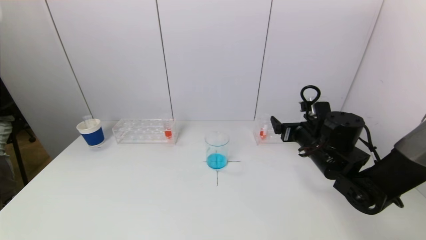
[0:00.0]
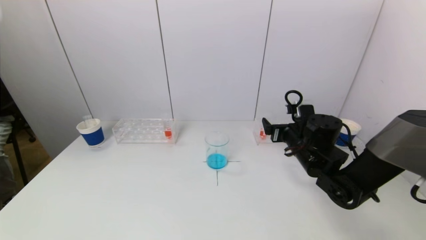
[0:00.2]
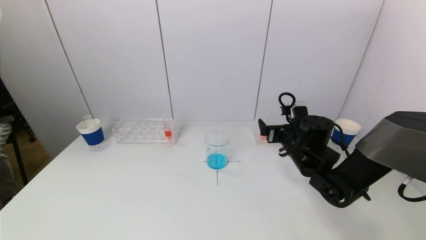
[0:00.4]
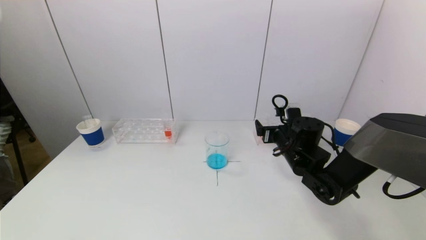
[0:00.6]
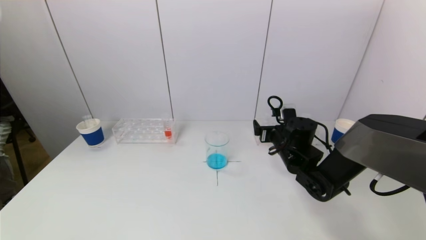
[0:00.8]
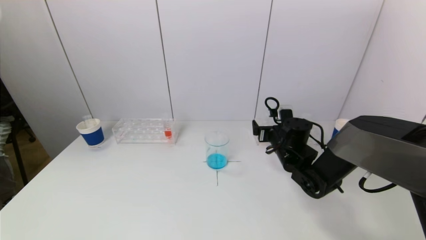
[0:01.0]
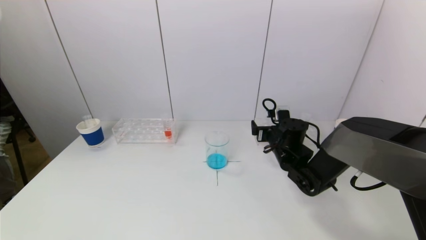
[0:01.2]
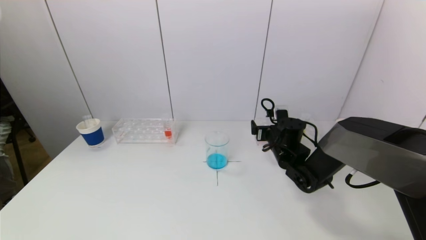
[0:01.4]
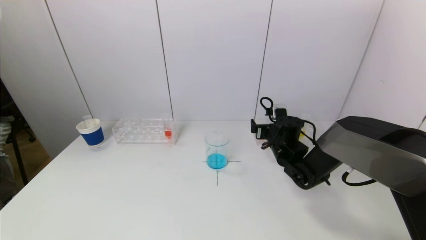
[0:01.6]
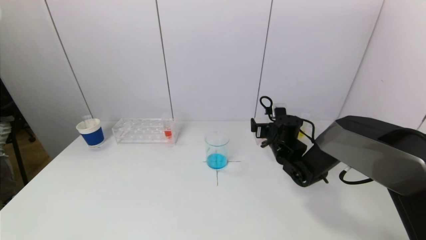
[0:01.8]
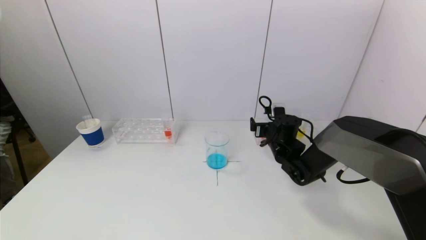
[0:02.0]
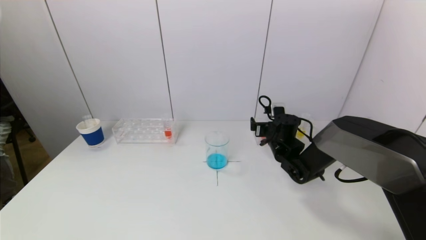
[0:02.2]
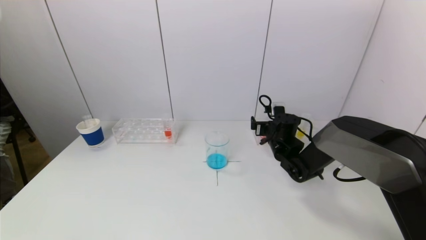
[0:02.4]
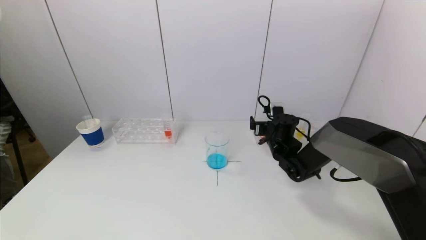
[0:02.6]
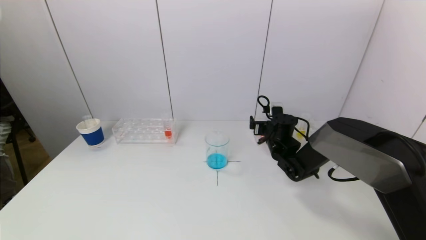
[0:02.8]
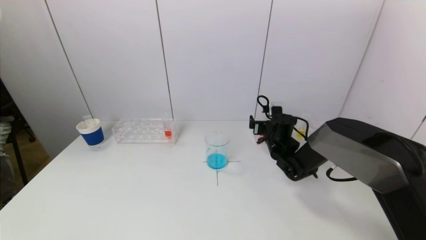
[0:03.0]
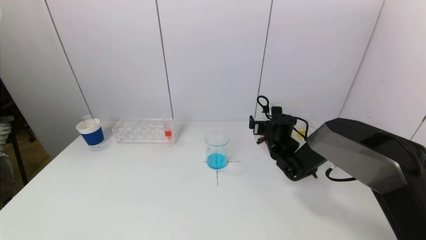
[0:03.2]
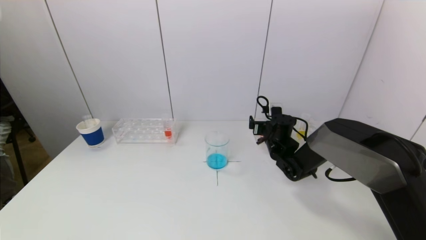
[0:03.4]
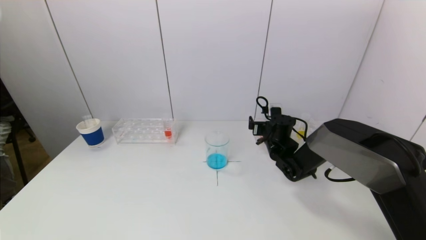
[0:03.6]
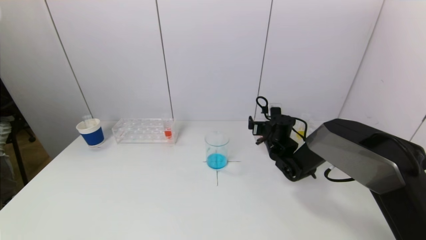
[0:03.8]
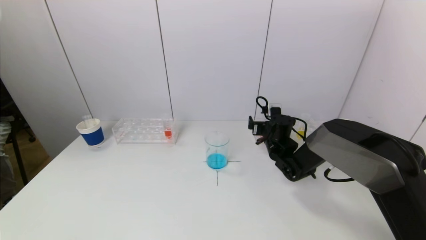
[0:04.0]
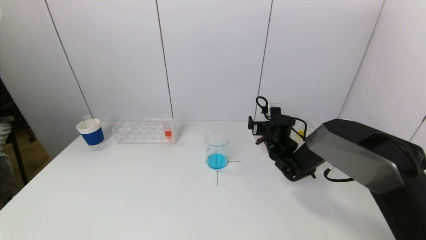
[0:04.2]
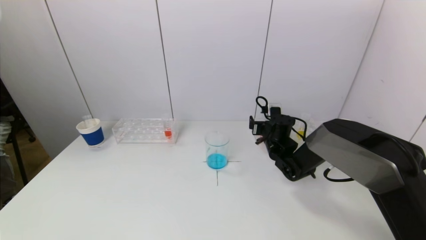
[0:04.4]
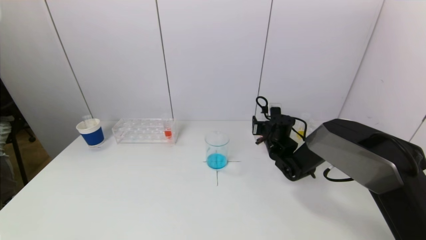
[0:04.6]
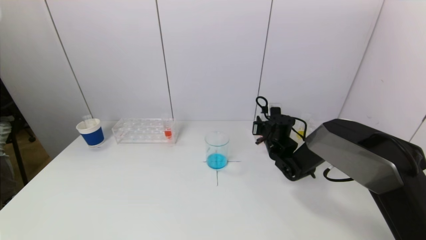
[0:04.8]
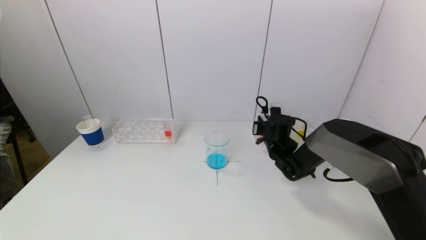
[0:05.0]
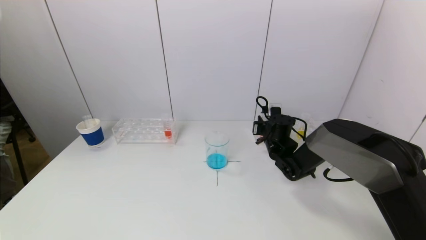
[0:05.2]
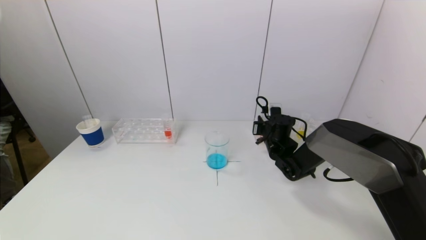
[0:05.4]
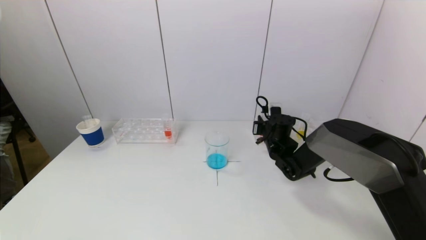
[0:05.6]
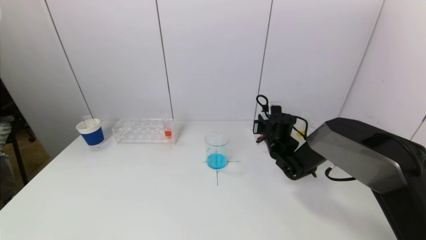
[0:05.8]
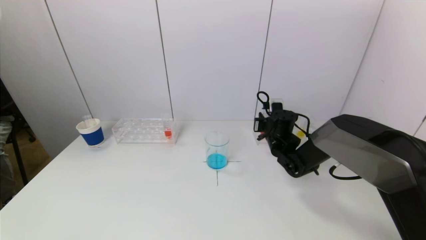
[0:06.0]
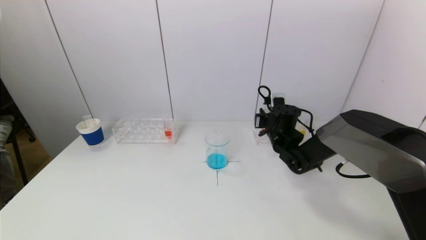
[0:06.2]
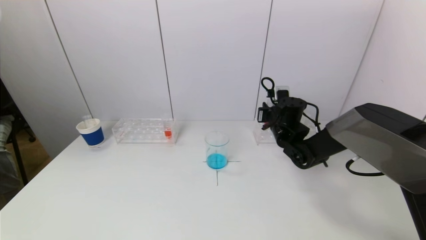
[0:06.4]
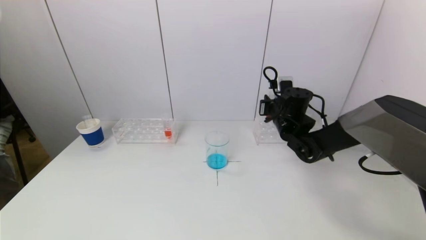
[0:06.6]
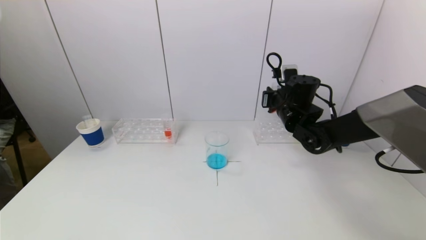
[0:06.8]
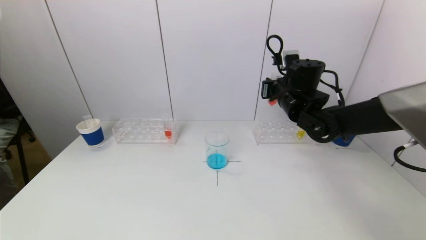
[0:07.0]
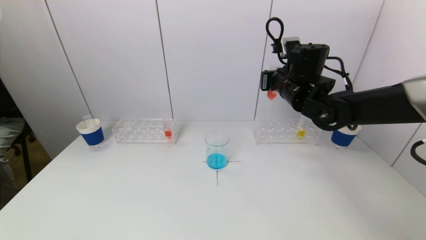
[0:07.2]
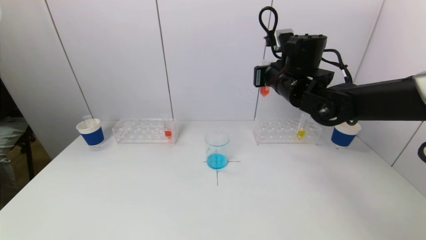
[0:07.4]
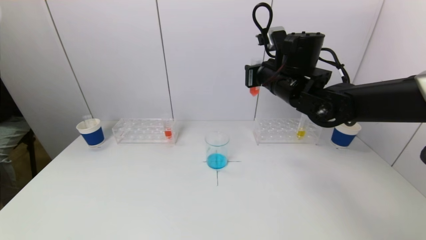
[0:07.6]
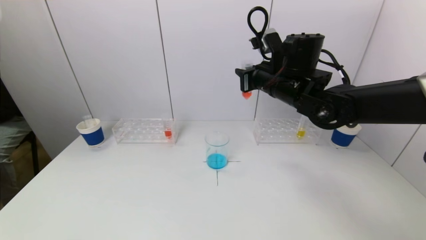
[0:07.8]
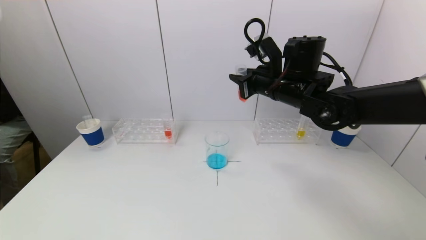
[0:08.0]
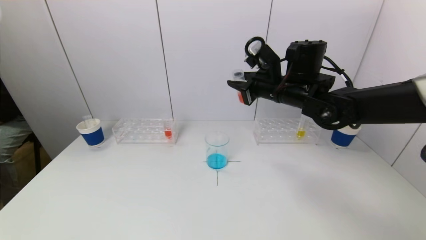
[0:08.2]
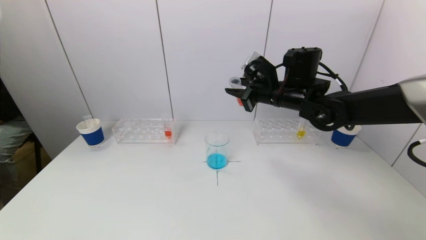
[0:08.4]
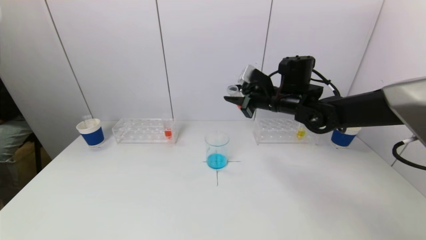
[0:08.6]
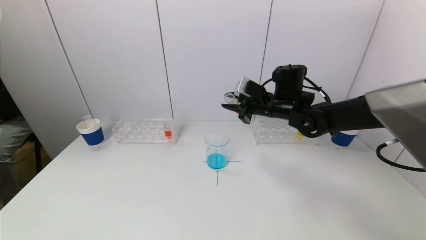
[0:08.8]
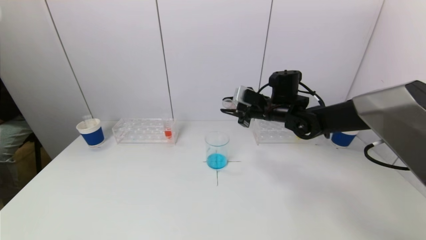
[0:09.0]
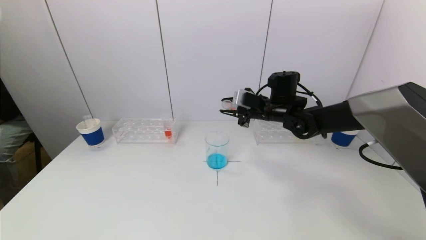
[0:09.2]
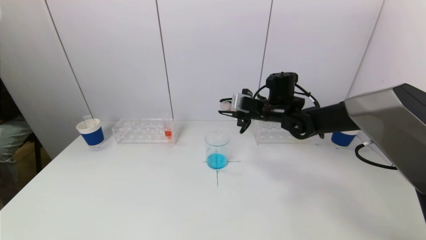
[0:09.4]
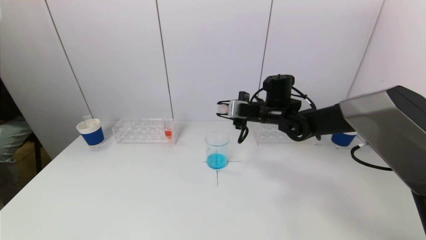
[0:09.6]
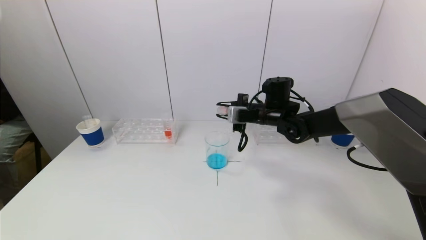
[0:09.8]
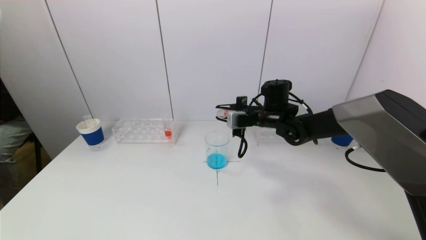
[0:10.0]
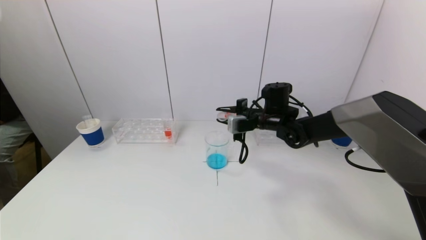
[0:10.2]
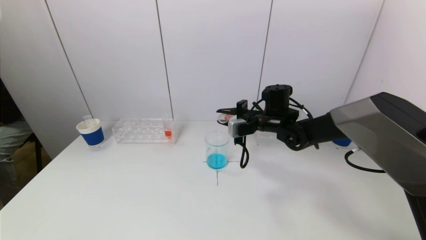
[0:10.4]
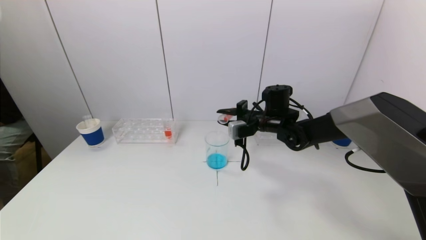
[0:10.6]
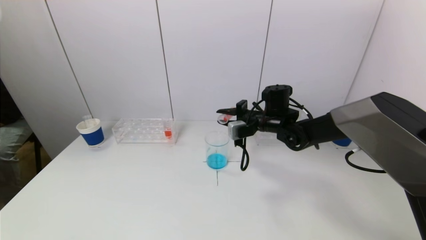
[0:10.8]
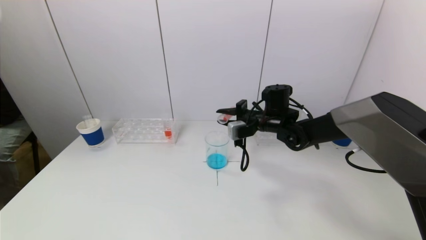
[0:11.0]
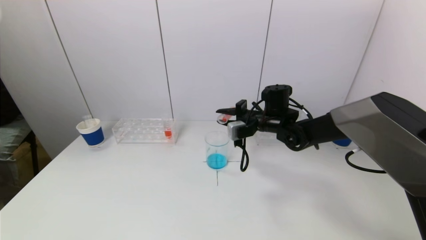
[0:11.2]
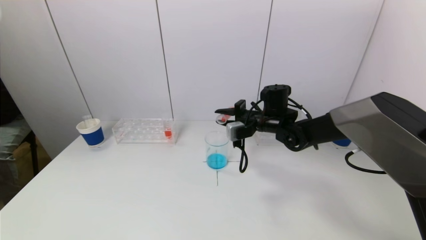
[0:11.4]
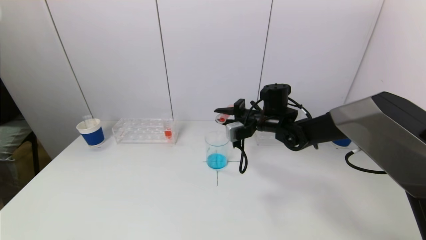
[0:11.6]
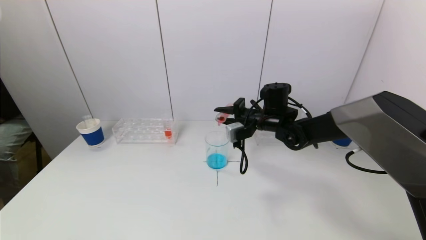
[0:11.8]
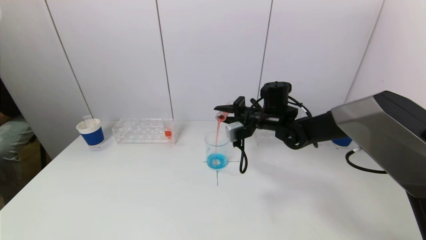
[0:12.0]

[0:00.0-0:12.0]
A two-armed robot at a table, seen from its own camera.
Task of the whole recording: pick up a test tube with pigment on left test tube rack and a test tube with pigment on right test tube rack by grippers and pour them into the beaker.
Step, 0:00.0 to 0:05.2: Grasp the red reagent with the right gripper.
0:00.0 to 0:01.6: The right gripper heads forward and downward, covering some 10 cm.
0:01.6 to 0:03.0: The grippers make only small movements.
0:03.0 to 0:04.4: The two grippers keep their place.
0:04.4 to 0:06.0: The right gripper closes its fingers.
0:06.0 to 0:07.6: The right gripper goes some 20 cm upward.
0:07.6 to 0:09.0: The right gripper moves downward, roughly 10 cm.
0:10.4 to 0:12.0: The grippers stay close to where they were, moving slightly.

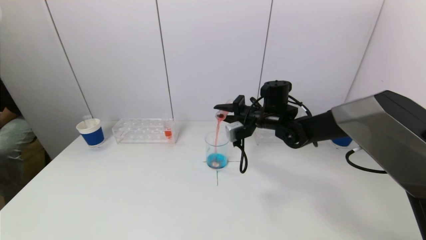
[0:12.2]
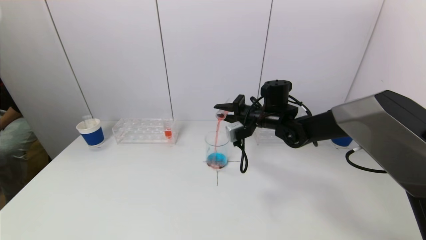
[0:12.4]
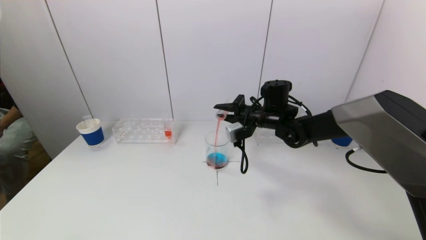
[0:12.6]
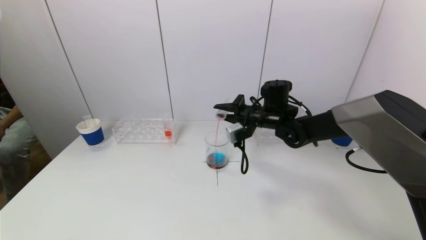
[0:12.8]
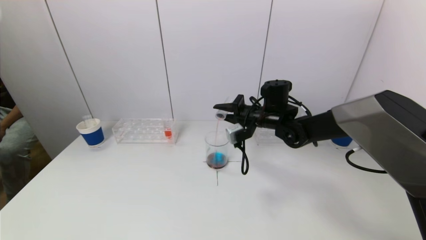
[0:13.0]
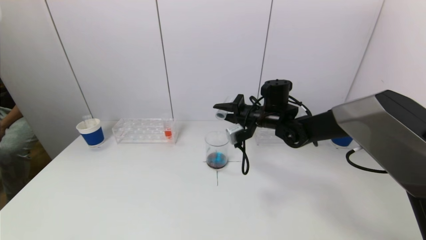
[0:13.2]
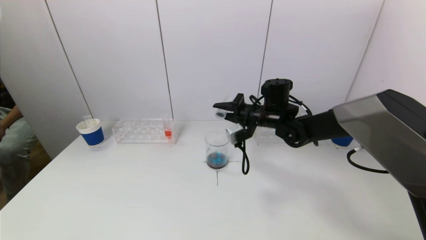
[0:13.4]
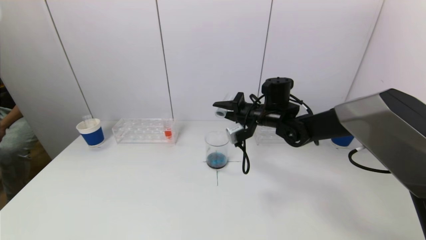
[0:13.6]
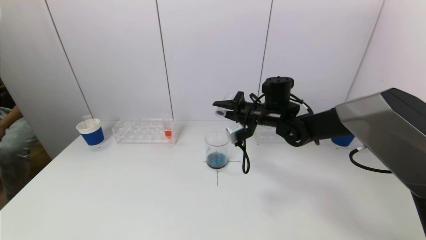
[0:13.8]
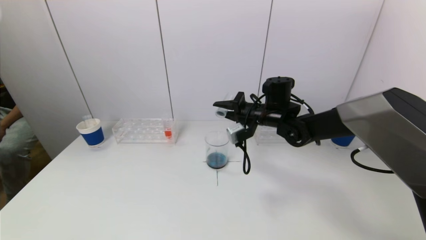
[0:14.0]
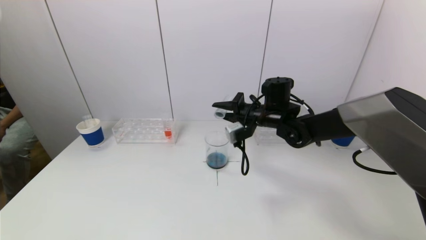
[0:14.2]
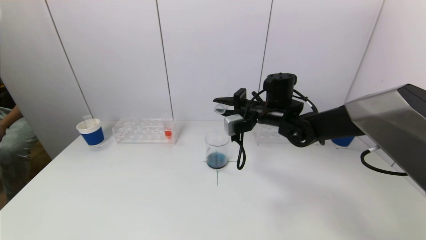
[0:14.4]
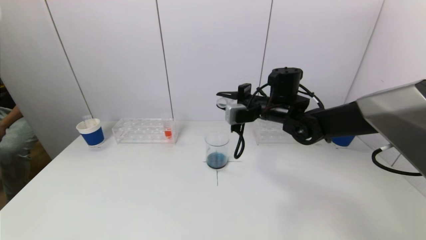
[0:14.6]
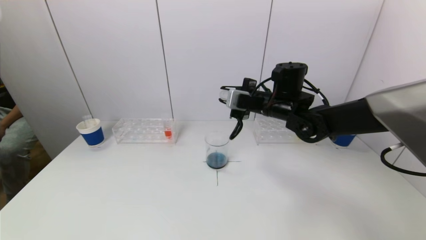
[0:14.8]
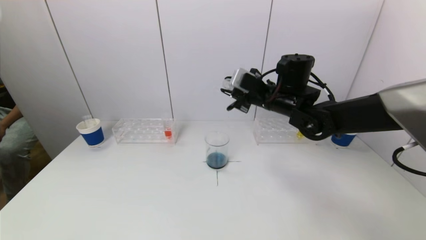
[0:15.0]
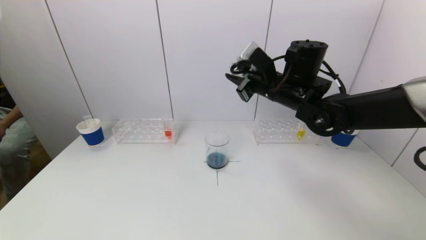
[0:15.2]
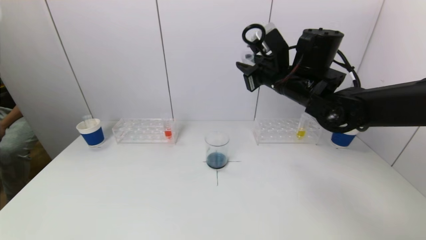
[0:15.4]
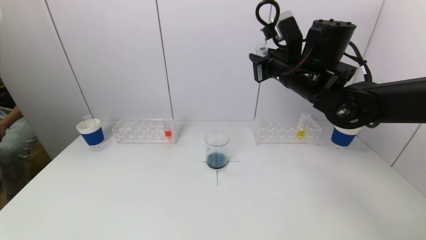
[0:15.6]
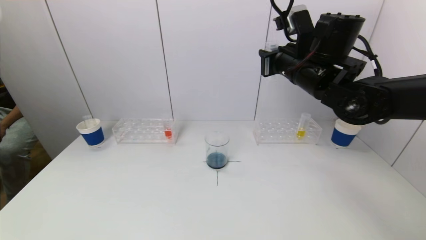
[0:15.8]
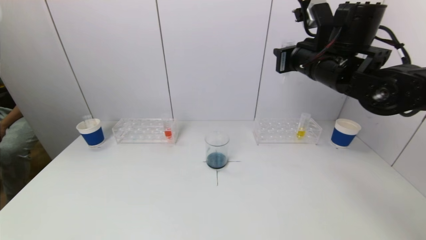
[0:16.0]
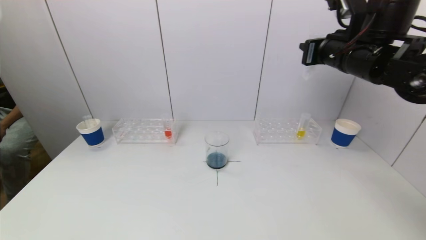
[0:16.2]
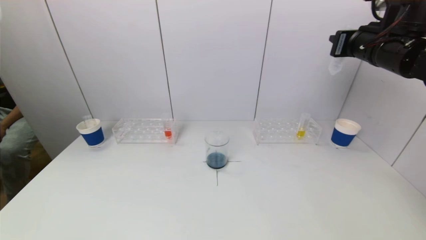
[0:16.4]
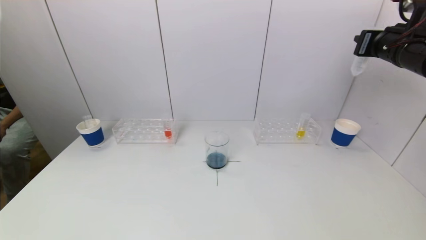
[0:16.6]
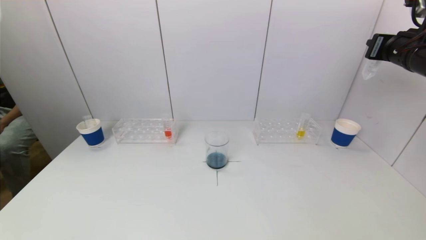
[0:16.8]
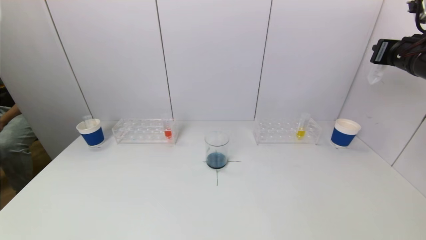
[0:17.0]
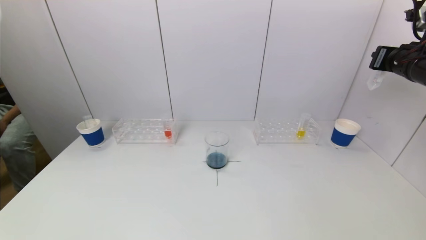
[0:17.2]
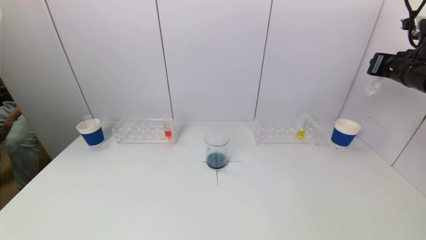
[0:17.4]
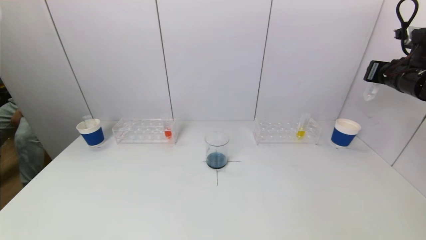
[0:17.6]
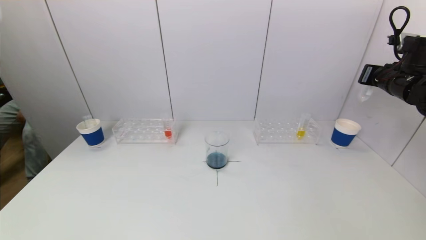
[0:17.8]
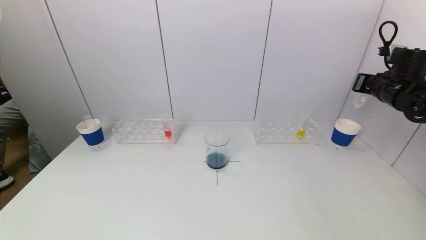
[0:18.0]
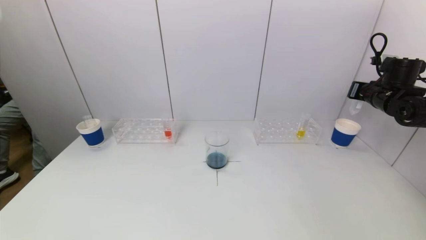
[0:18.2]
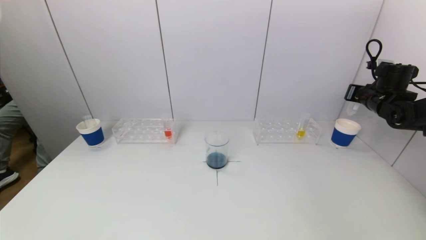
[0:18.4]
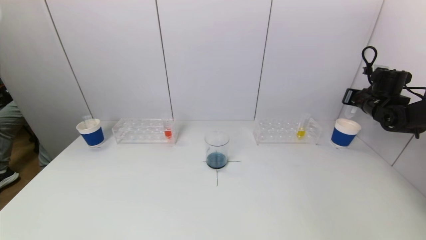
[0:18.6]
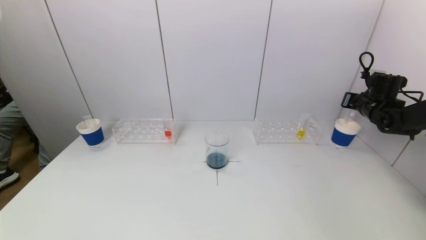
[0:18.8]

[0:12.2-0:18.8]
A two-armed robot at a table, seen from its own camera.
Task of the whole recording: pick up a test tube with pigment on left test tube rack and a test tube with pigment on right test tube rack by grippers and pour them into the beaker.
0:12.2 to 0:13.8: The grippers move only a little.
0:13.8 to 0:15.4: The right gripper heads upward and backward, covering some 15 cm.
0:15.4 to 0:17.2: The right gripper heads to the right, covering roughly 25 cm.
0:17.2 to 0:18.8: The right gripper travels downward, forward and to the right by roughly 20 cm.
